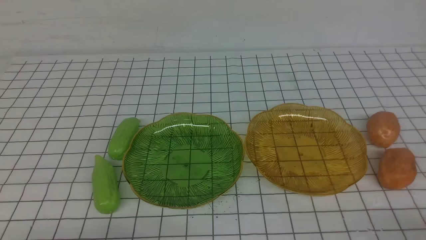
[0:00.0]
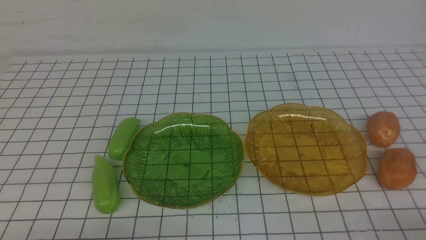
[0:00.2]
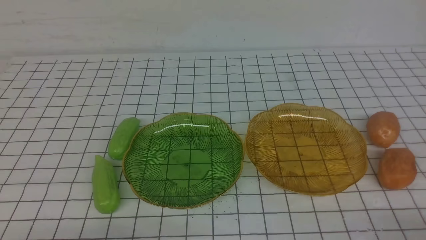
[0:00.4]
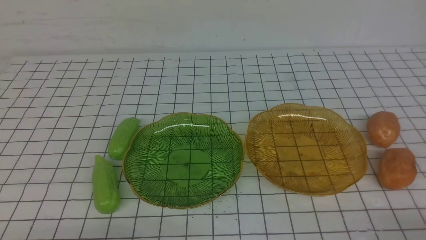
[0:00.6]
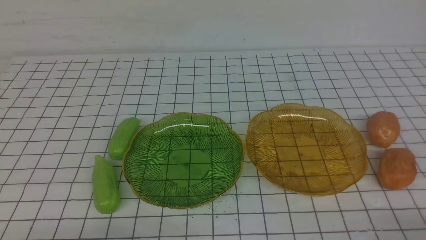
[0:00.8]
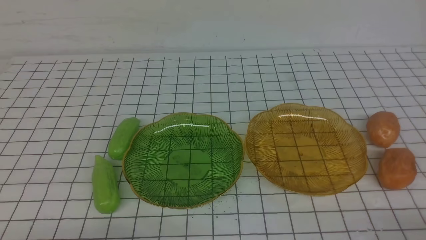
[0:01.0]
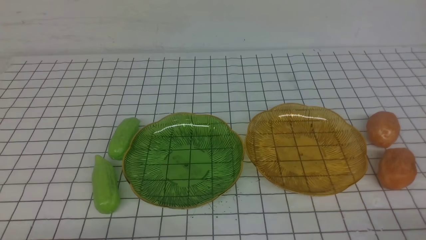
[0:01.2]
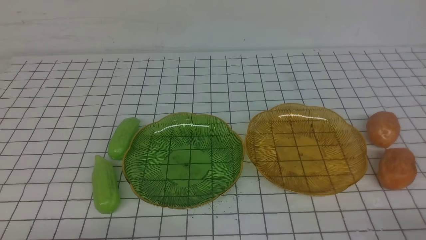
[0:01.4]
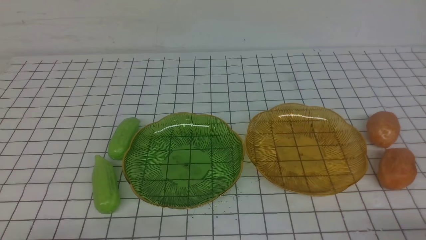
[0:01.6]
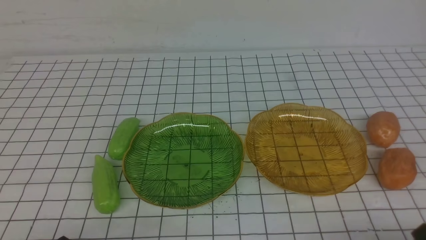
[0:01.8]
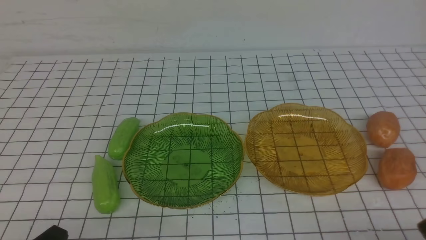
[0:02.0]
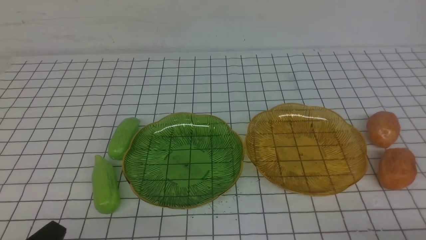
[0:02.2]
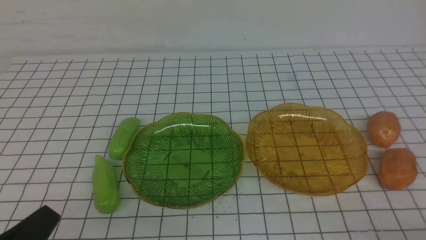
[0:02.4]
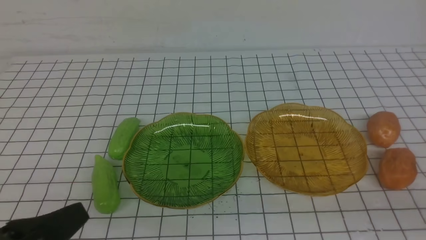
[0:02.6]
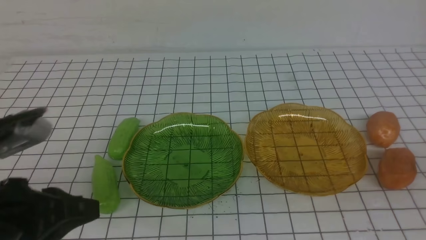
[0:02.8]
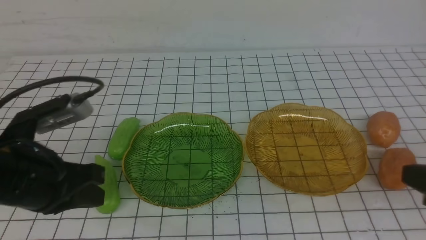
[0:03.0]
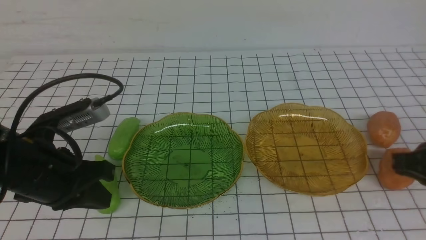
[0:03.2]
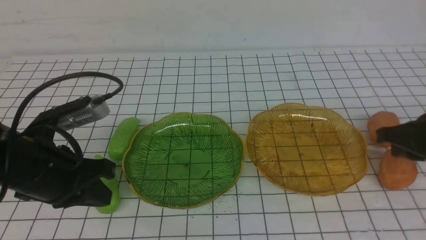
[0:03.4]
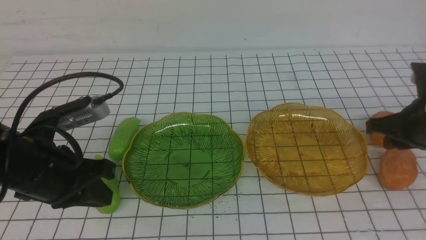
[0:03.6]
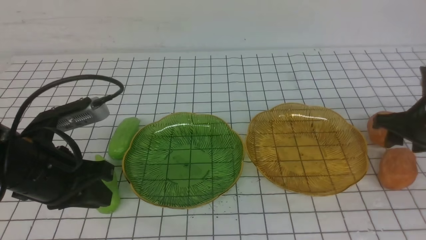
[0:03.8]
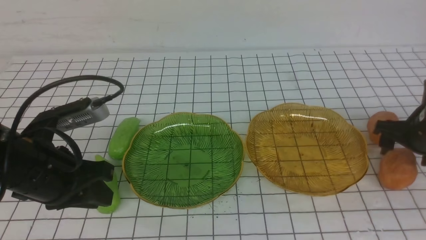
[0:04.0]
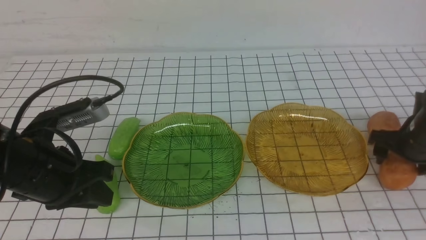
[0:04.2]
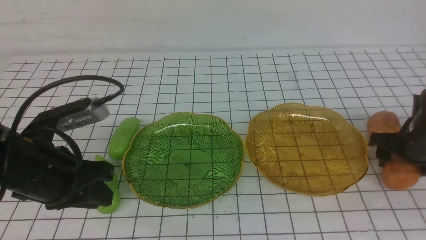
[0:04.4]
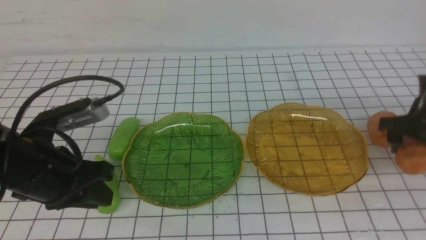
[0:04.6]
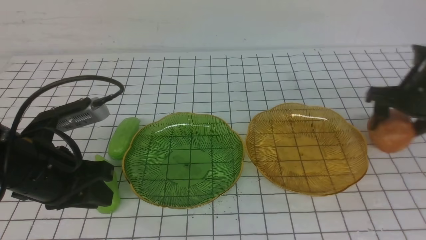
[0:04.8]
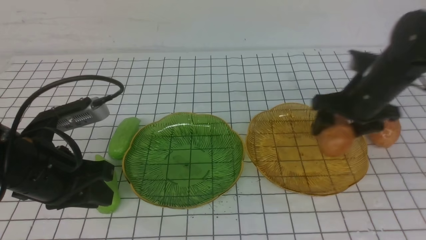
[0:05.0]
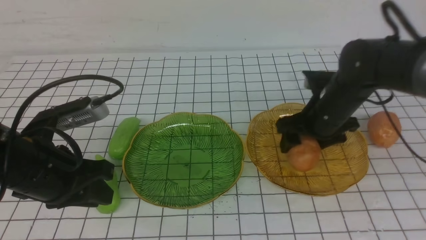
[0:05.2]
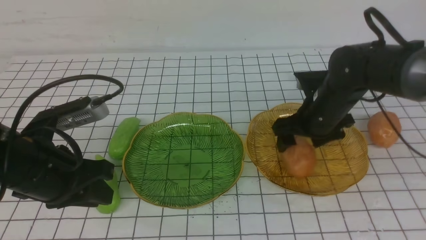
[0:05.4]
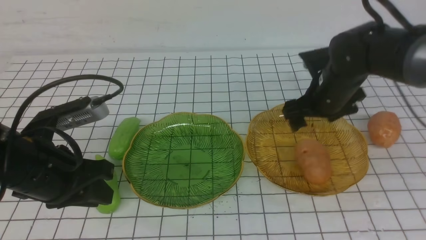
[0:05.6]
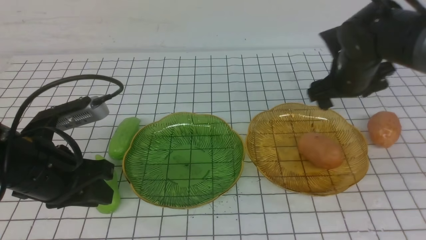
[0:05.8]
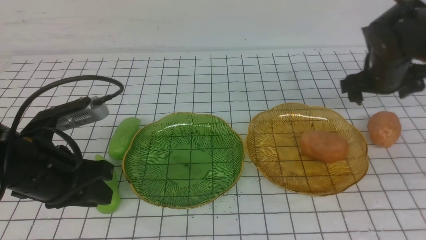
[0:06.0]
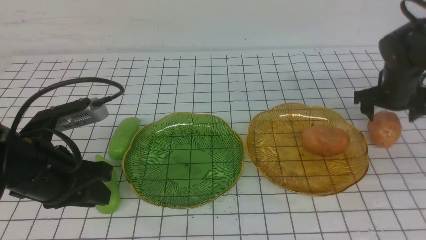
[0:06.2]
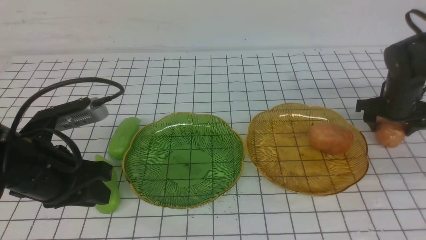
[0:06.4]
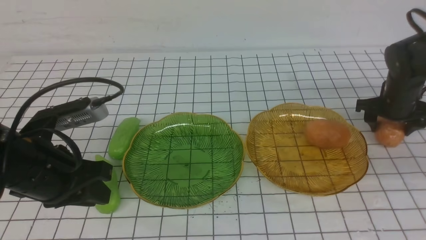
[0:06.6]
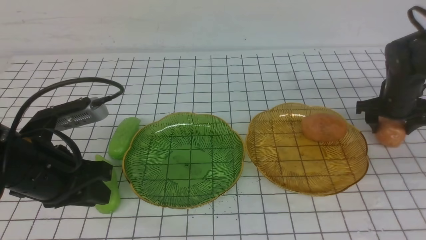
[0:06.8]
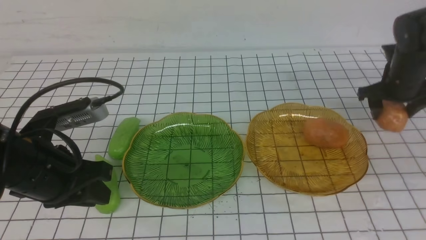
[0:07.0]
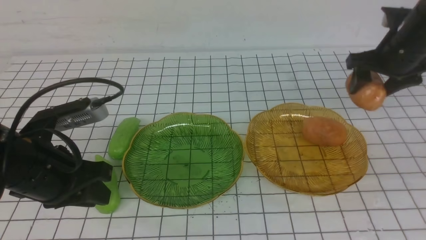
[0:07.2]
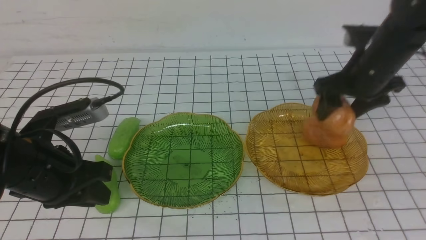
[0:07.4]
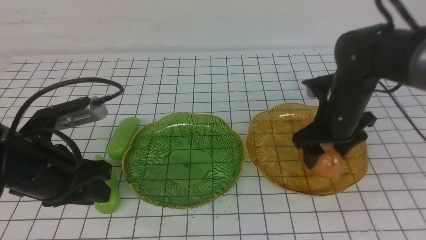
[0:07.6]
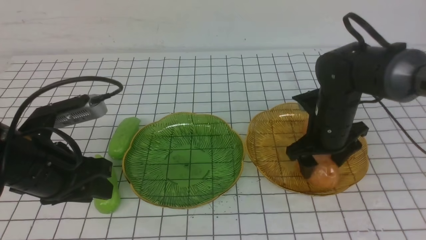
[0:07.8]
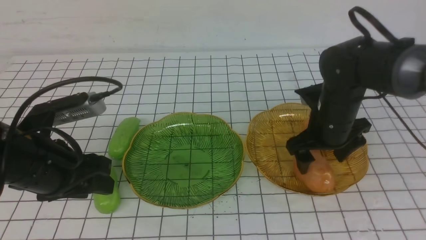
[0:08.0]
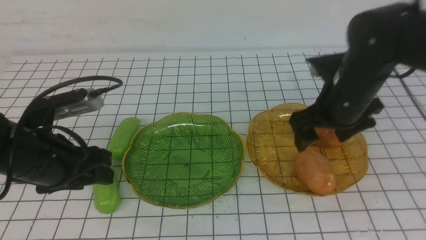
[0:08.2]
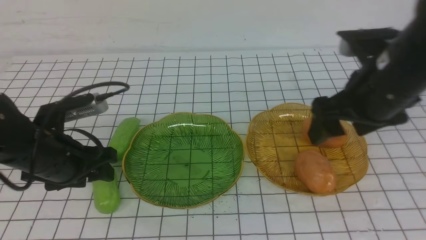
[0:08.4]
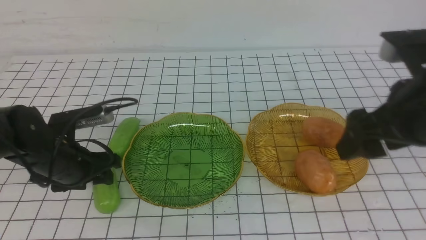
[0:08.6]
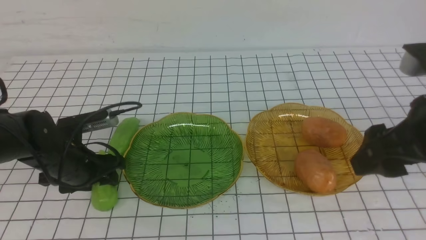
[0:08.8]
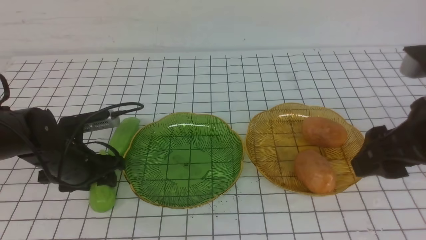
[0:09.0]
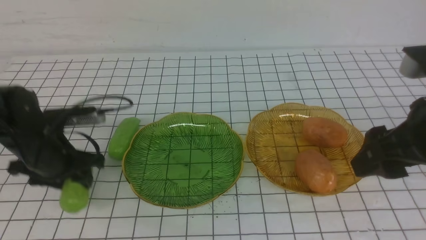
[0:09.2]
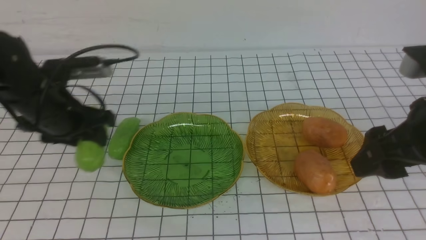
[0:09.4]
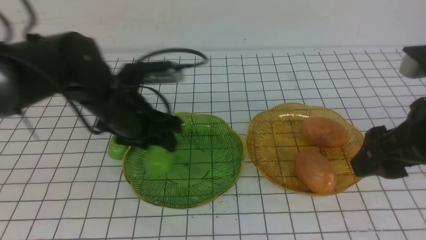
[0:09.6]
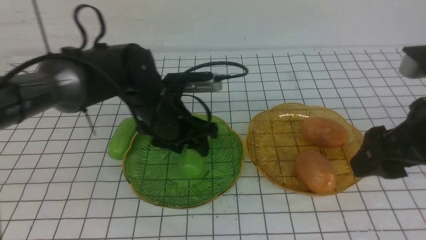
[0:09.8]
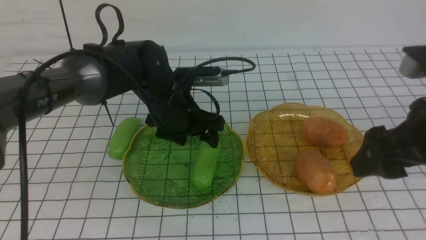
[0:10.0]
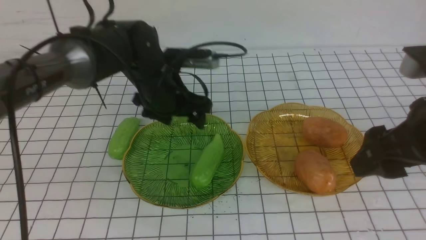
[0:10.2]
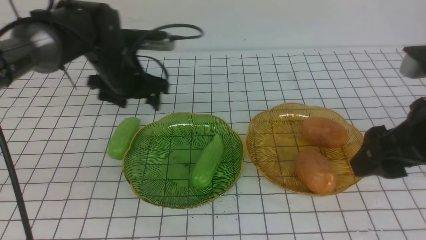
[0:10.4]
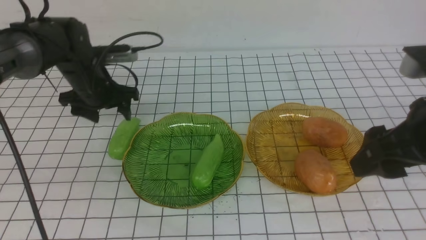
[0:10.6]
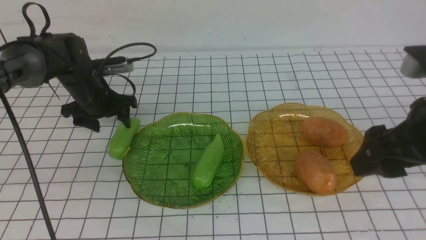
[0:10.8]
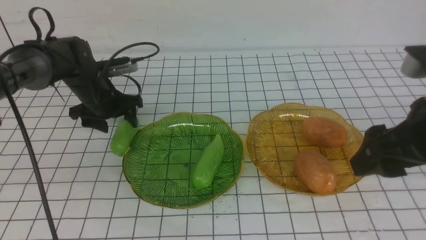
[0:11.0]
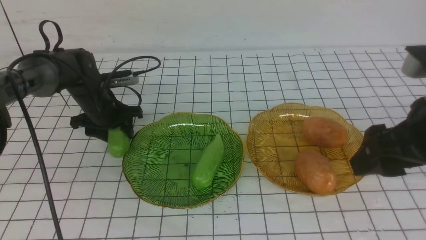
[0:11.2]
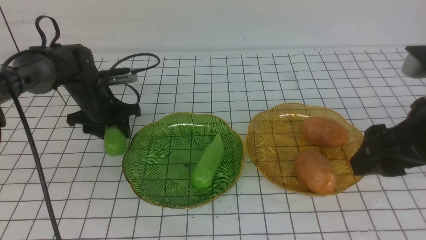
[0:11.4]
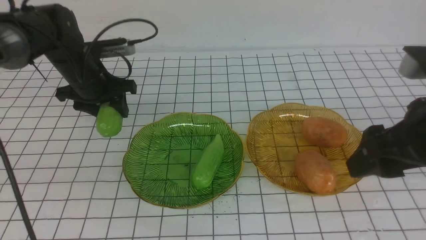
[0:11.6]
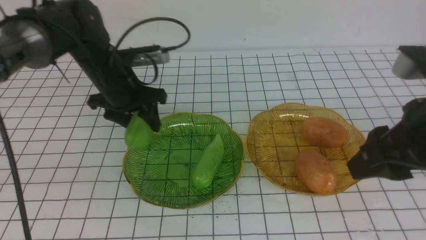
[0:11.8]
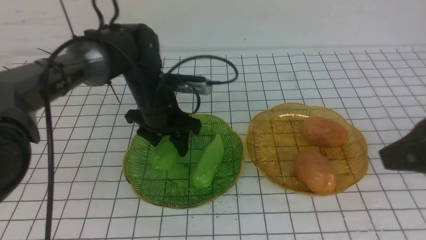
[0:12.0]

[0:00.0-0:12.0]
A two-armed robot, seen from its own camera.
Step, 0:00.0 to 0:08.0: Grab a potato with your right arm and put it on the right plate.
0:01.6 to 0:03.0: The left gripper heads forward and upward, covering some 15 cm. Meanwhile the right gripper heads upward and forward, covering some 15 cm.
0:03.0 to 0:04.4: The right gripper shifts about 25 cm forward and downward, and opens.
0:04.4 to 0:06.0: The right gripper travels forward and to the left by some 10 cm.
0:06.0 to 0:07.6: The right gripper moves to the left and backward, some 10 cm.
0:07.6 to 0:09.0: The left gripper heads downward and forward, covering about 10 cm. Meanwhile the right gripper heads backward and upward, covering roughly 20 cm.
0:09.0 to 0:10.4: The left gripper shifts roughly 15 cm forward, to the right and upward.
0:10.4 to 0:12.0: The right gripper travels backward by some 5 cm, and closes; the left gripper travels to the right by some 5 cm.

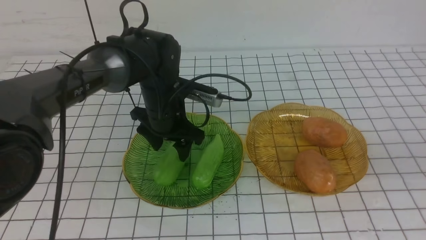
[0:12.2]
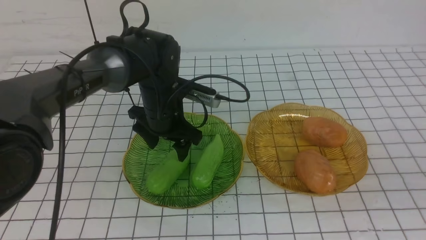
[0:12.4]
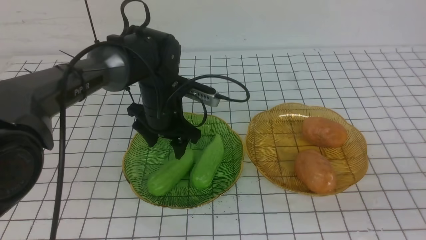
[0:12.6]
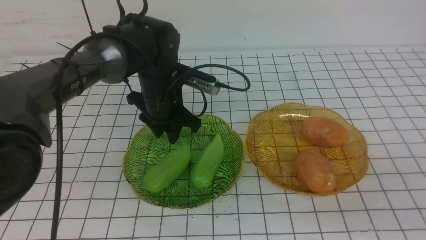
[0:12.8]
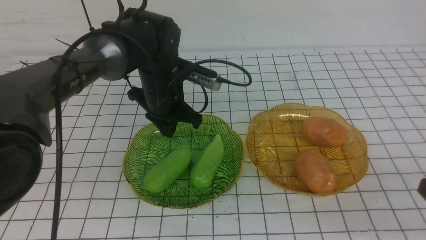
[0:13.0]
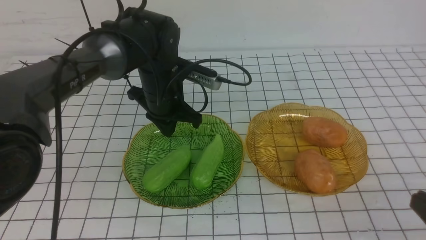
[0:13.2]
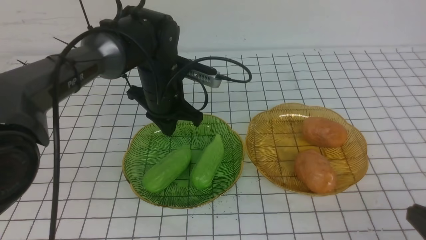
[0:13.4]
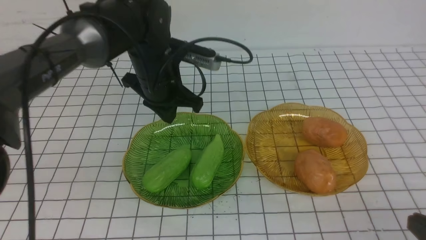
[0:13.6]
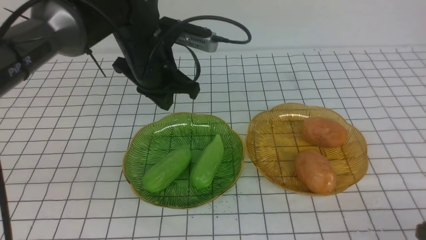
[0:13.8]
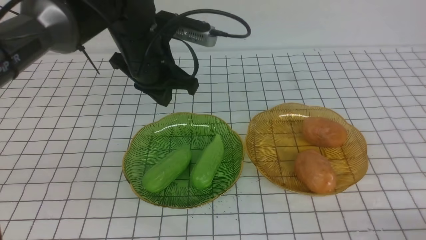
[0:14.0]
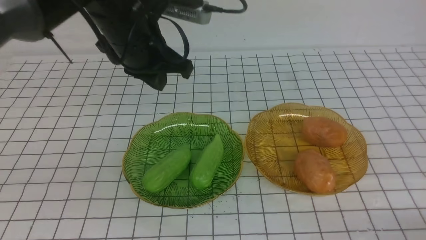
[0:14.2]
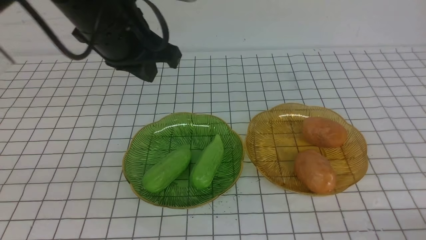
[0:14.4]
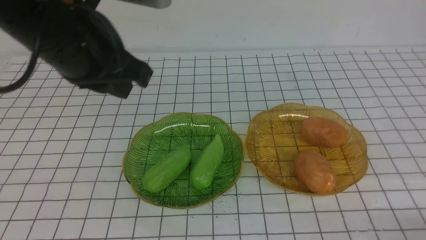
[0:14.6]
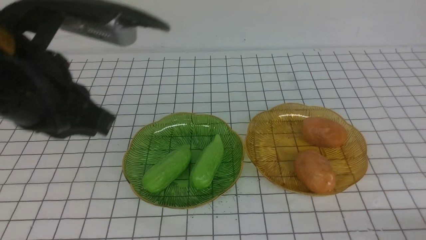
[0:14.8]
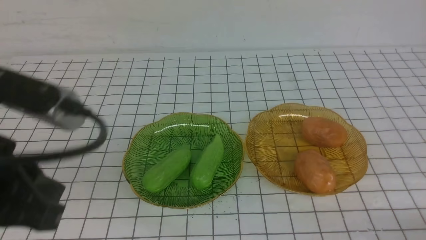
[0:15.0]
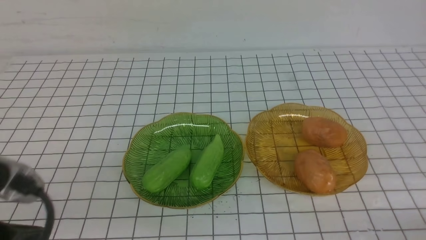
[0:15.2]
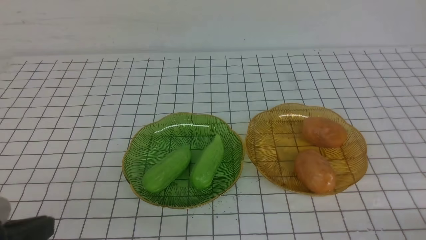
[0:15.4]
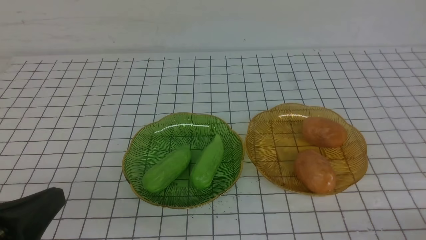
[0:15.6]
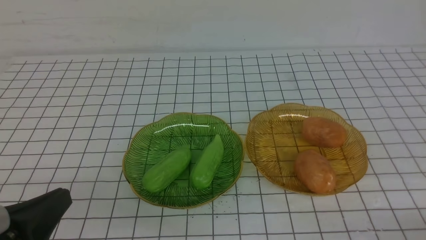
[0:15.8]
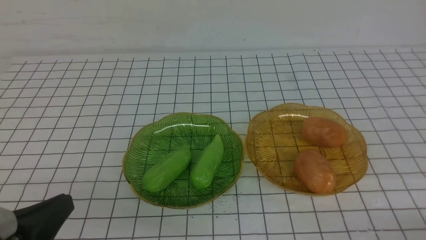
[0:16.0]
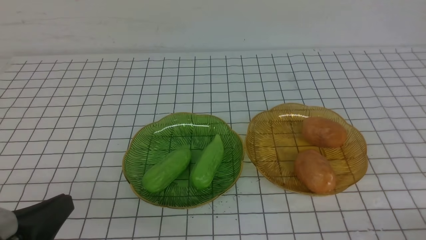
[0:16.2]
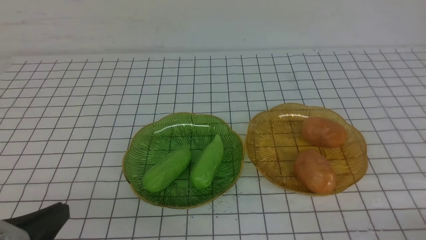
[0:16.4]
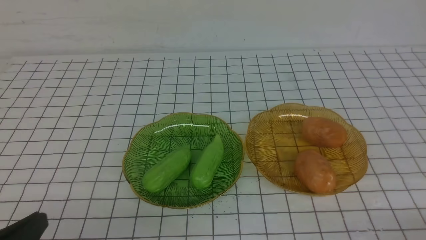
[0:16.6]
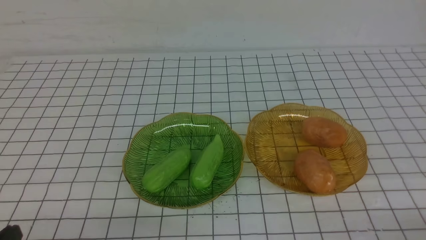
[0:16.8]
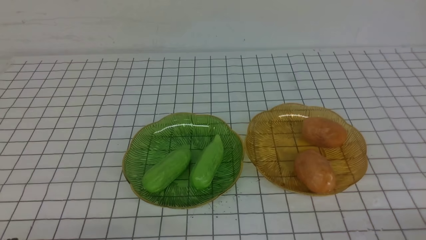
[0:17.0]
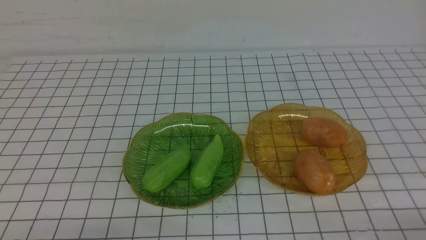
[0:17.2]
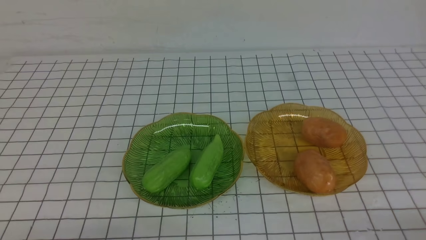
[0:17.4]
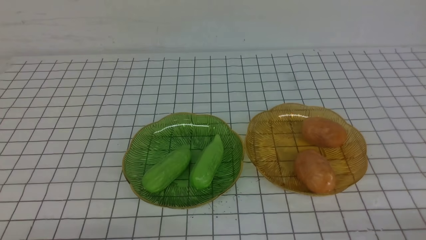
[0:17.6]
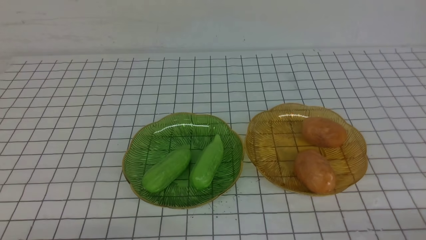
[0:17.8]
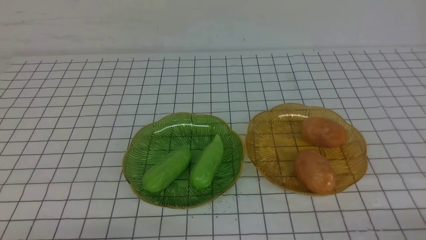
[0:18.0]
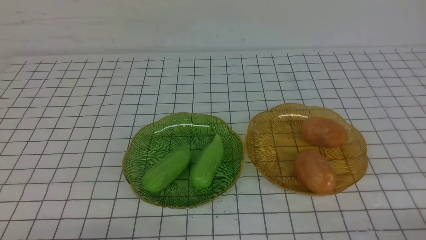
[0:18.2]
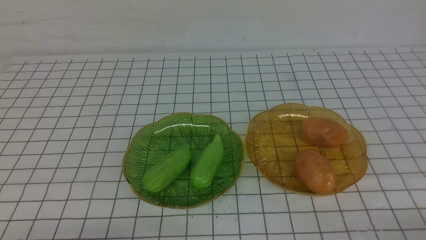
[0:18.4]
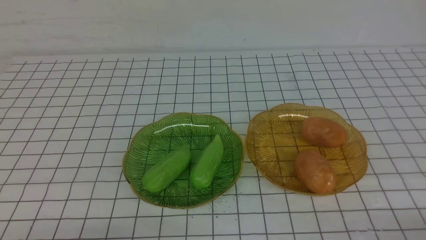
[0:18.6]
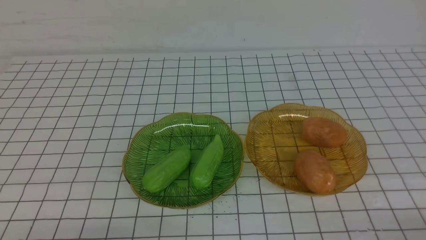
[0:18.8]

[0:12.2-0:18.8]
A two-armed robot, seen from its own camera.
0:12.2 to 0:13.8: The left gripper moves upward, roughly 10 cm, and closes up. The right gripper shifts approximately 20 cm downward.
0:13.8 to 0:15.4: The left gripper travels backward and to the left by some 35 cm.
0:15.4 to 0:17.2: The left gripper goes approximately 10 cm downward.
0:17.2 to 0:18.8: Both grippers stay put.
